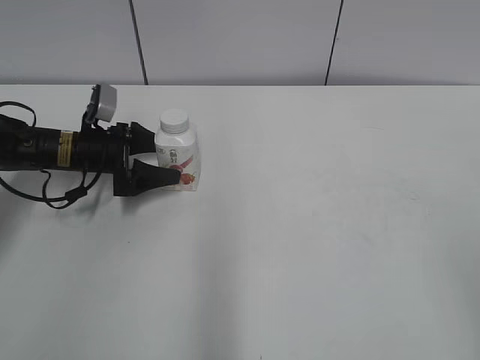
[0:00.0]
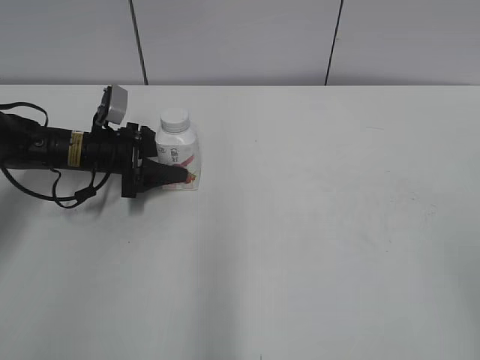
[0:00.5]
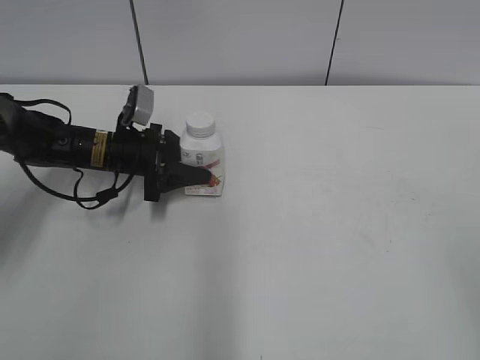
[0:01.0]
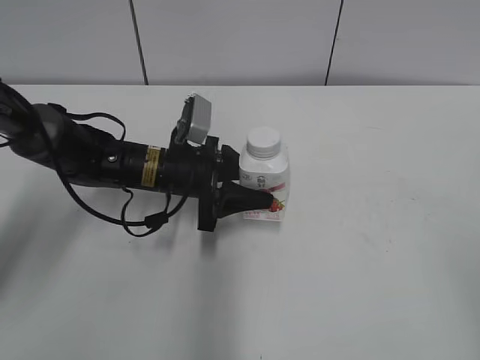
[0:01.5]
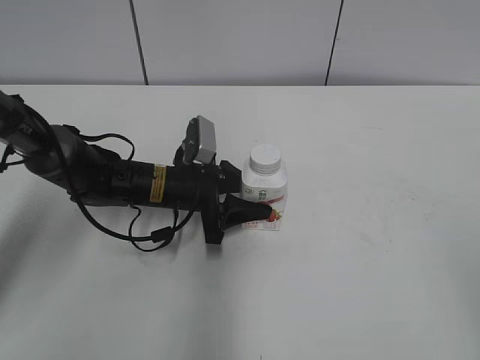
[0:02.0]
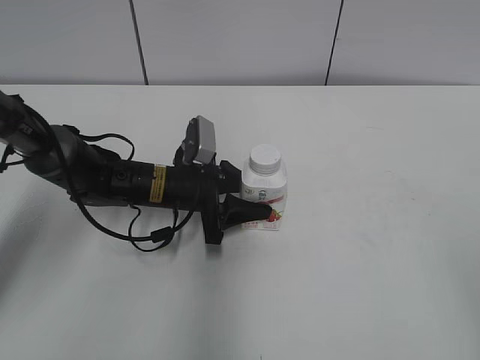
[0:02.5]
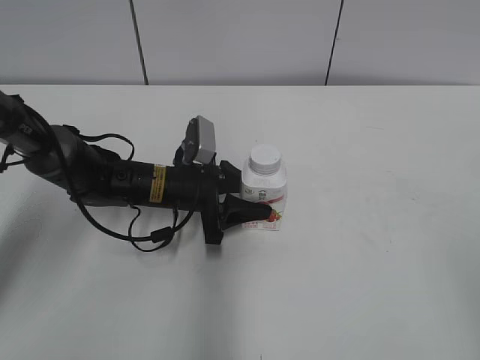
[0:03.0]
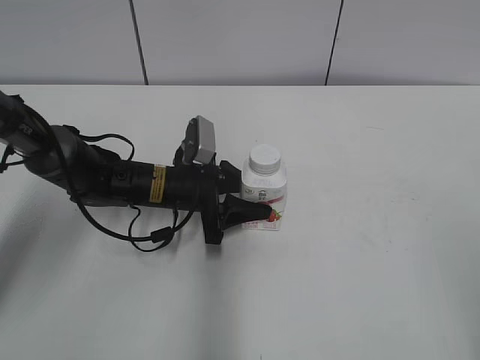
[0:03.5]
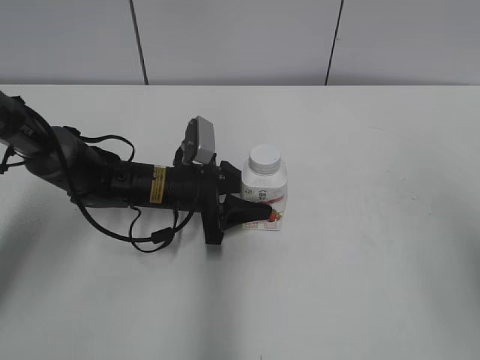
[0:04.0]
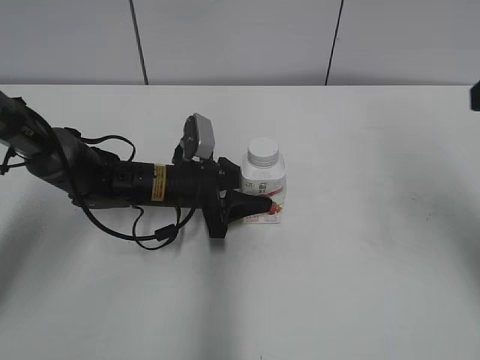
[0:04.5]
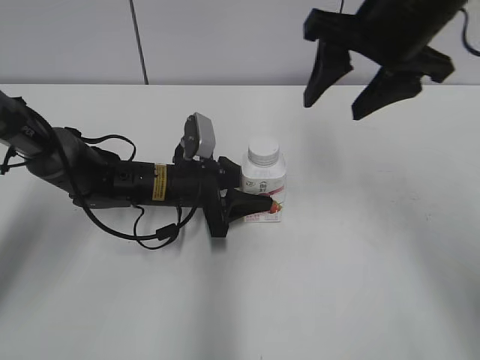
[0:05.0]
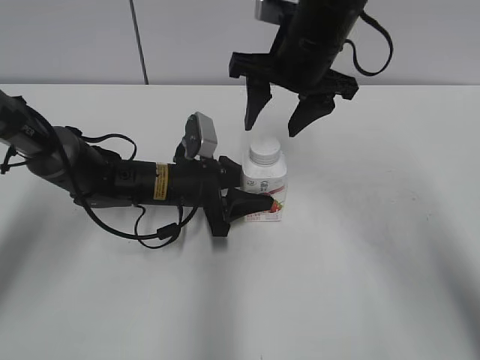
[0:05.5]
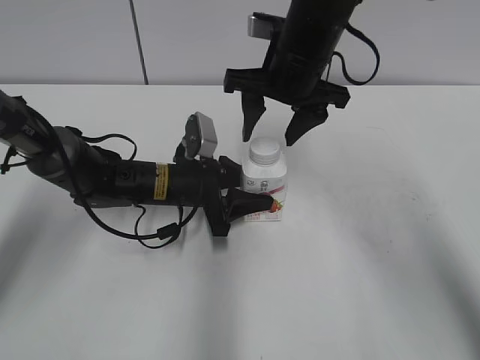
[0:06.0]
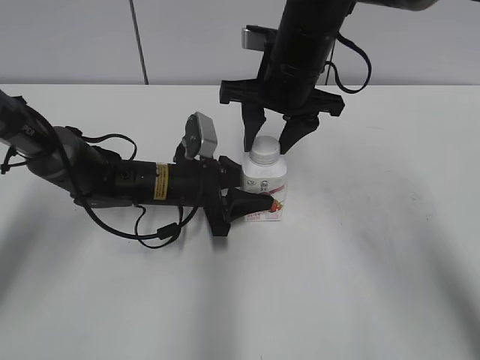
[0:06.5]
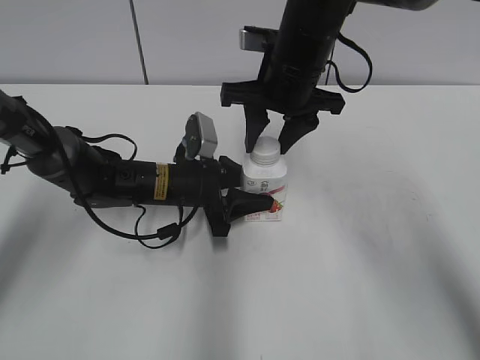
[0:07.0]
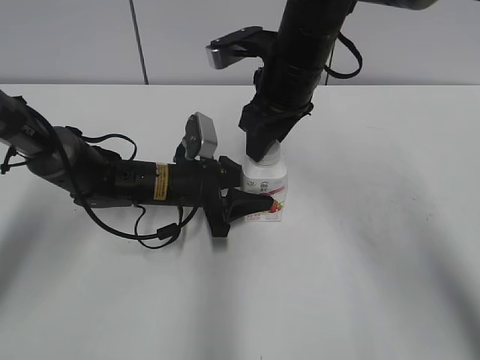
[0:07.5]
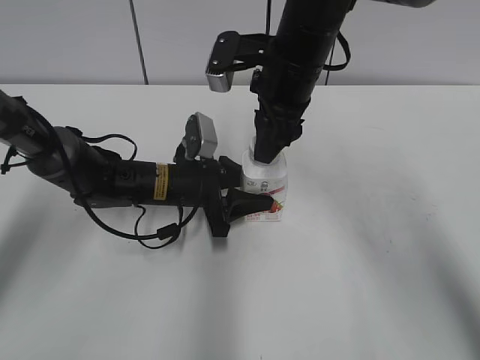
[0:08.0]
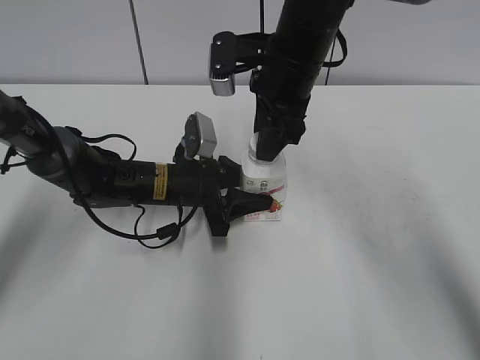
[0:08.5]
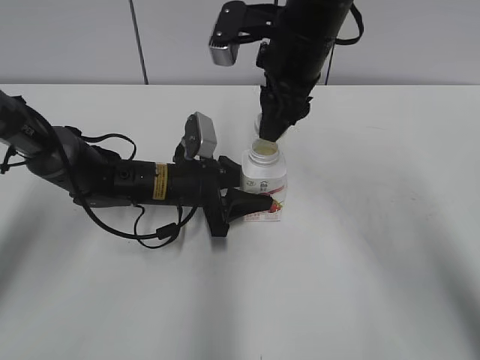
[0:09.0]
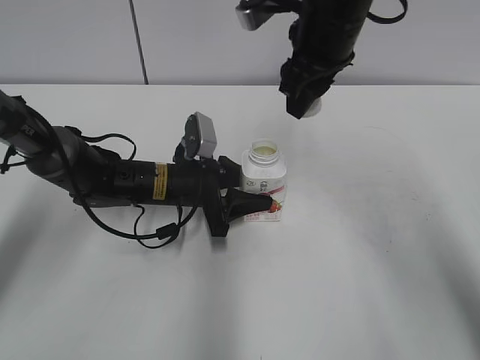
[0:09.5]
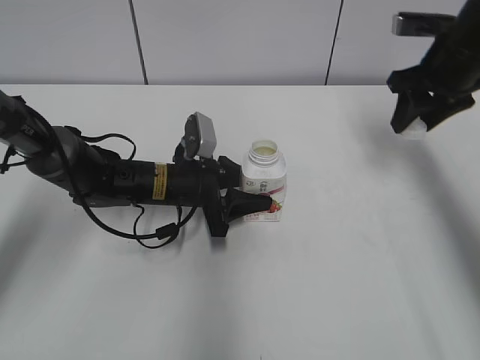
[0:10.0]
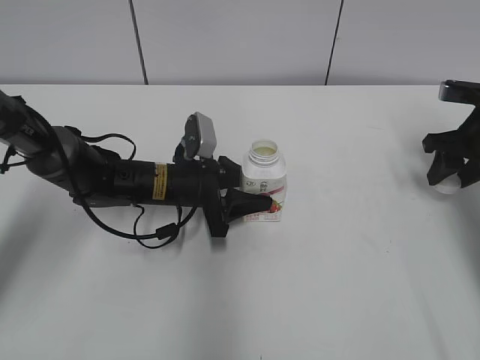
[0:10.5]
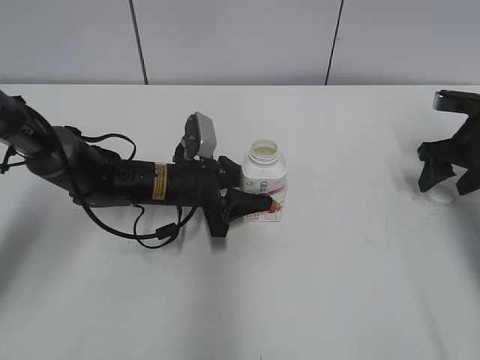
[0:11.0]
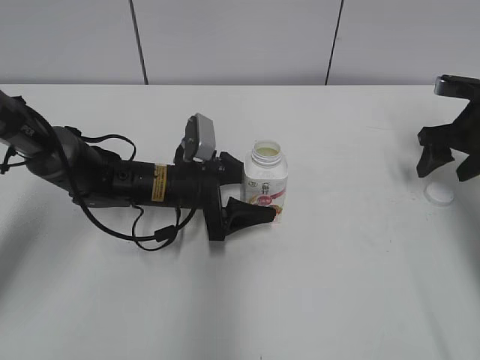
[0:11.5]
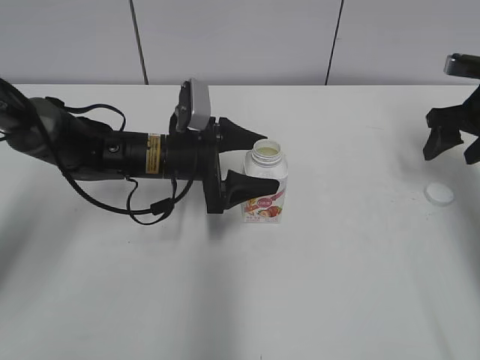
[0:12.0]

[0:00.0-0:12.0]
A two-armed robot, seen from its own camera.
Step, 0:01.0 to 0:02.0: Move the Yili Changqing from left to right.
Step, 0:09.0 to 0:10.5: Place the bottle cap on the right.
0:00.0 to 0:02.0: The left gripper travels to the right and backward by some 15 cm, and closes up.
0:04.0 to 0:06.0: The right gripper goes some 40 cm forward, to the left and downward.
0:06.0 to 0:08.0: The right gripper closes.
0:08.0 to 0:10.0: The right gripper travels to the right by roughly 20 cm.
0:10.0 to 0:12.0: The right gripper shifts some 10 cm to the right and downward, and opens. Meanwhile the left gripper opens.

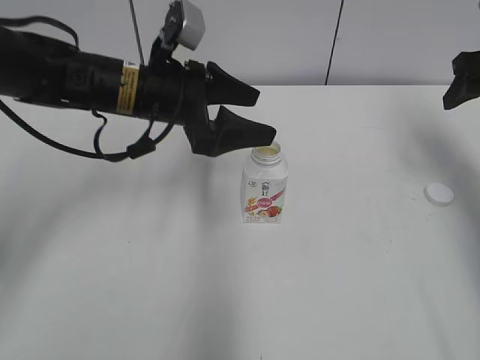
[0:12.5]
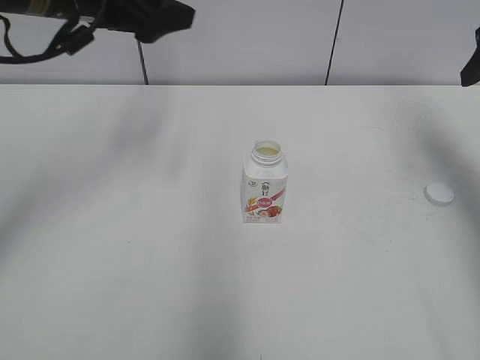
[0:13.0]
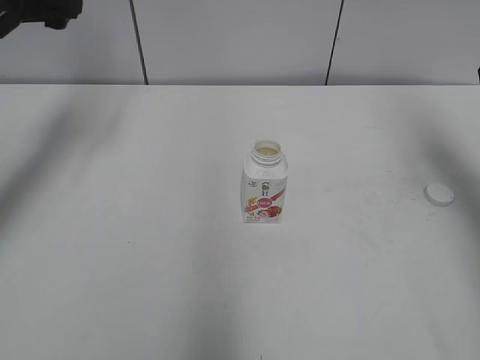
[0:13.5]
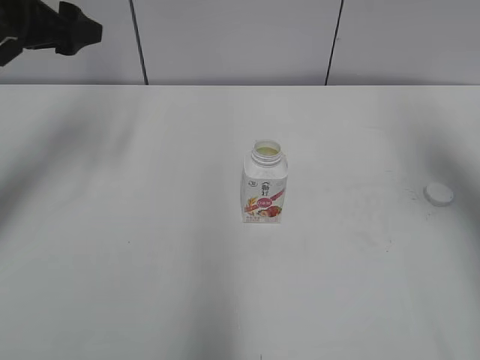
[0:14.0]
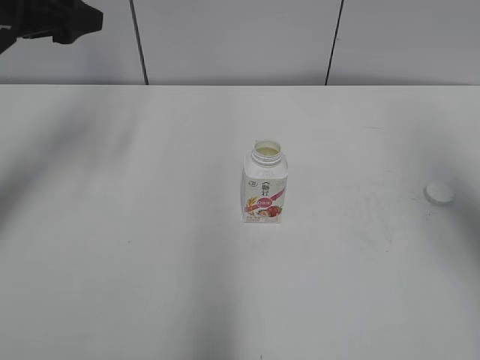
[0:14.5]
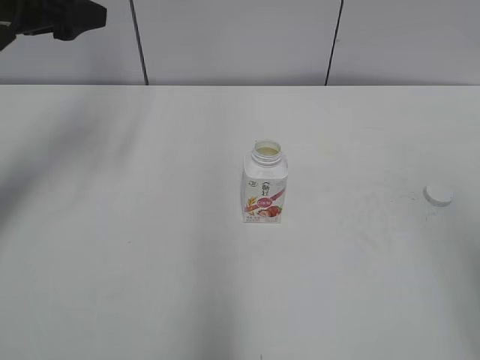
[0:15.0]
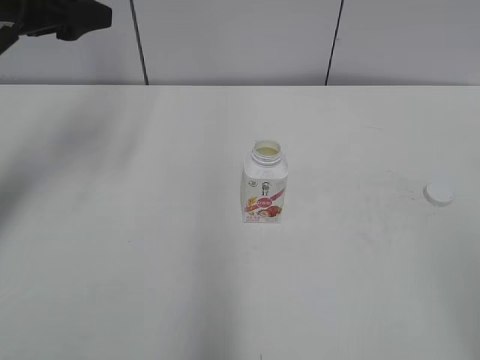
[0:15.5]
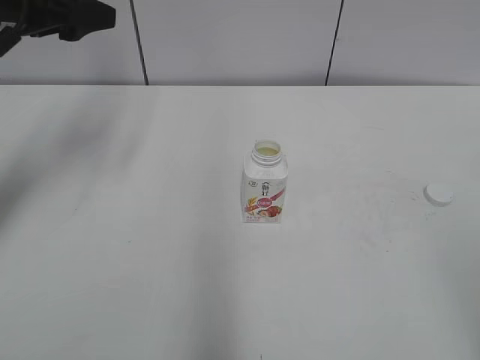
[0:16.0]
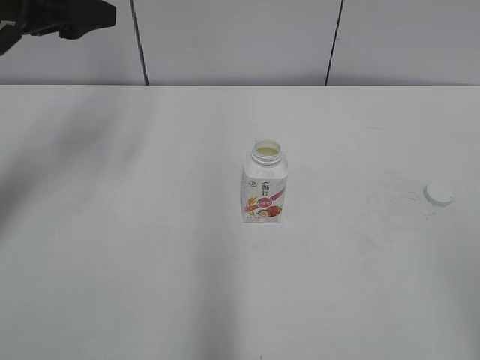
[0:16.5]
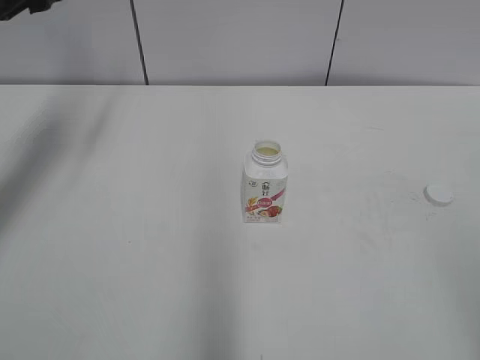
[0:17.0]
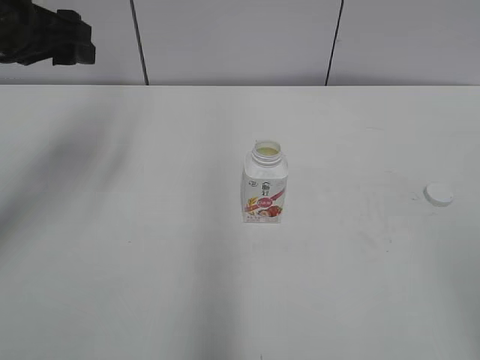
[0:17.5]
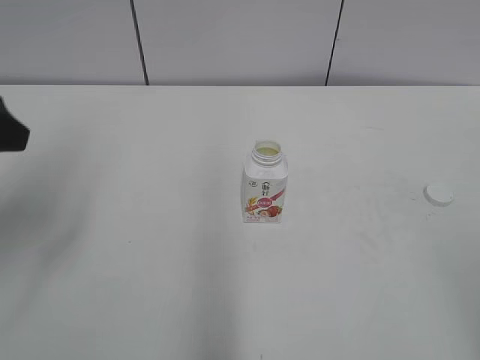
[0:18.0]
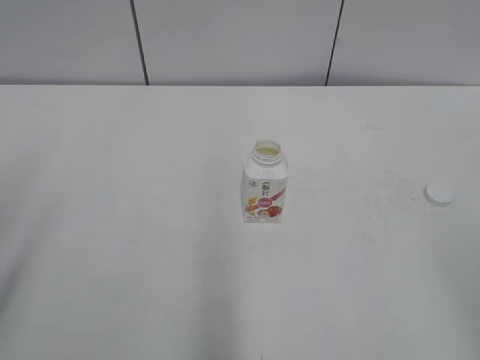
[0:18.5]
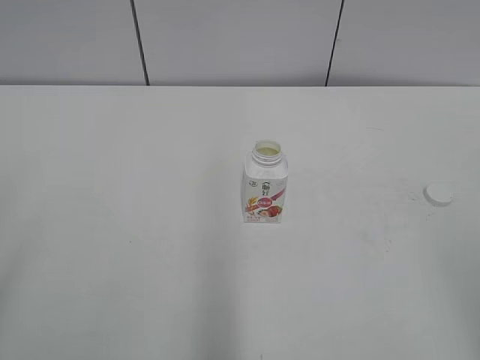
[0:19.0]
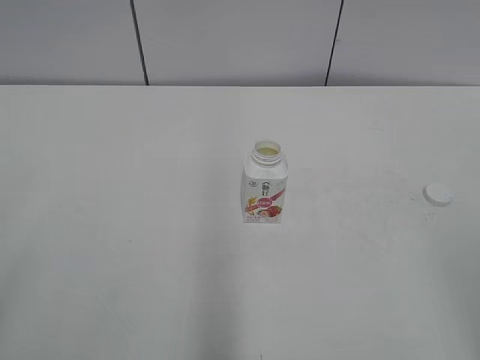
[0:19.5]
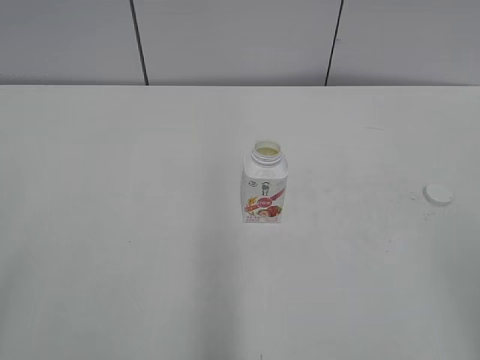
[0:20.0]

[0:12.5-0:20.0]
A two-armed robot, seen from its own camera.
0:12.5 to 0:14.5: The right gripper heads backward and upward, covering approximately 15 cm, while the left gripper moves to the left and upward, some 20 cm.
0:14.5 to 0:16.5: The right gripper heads backward, covering about 25 cm.
0:16.5 to 0:18.0: The left gripper moves backward, approximately 15 cm.
0:18.0 to 0:20.0: The left gripper is displaced backward by about 20 cm.
